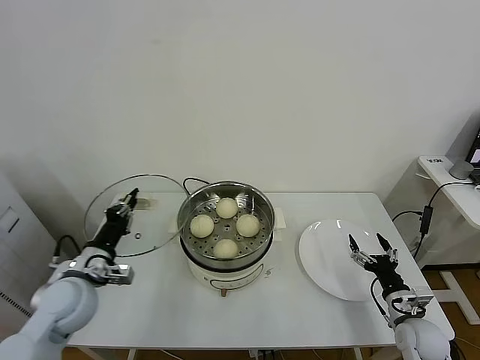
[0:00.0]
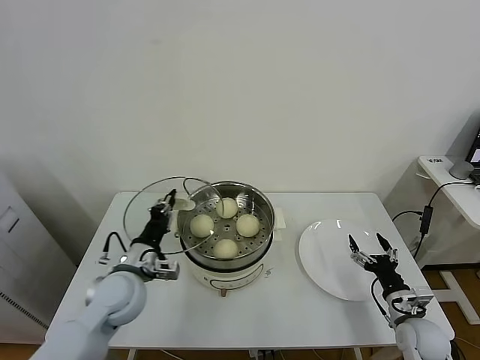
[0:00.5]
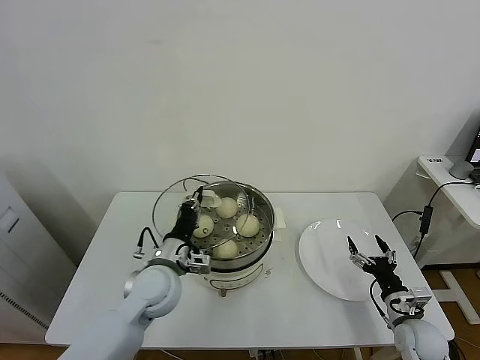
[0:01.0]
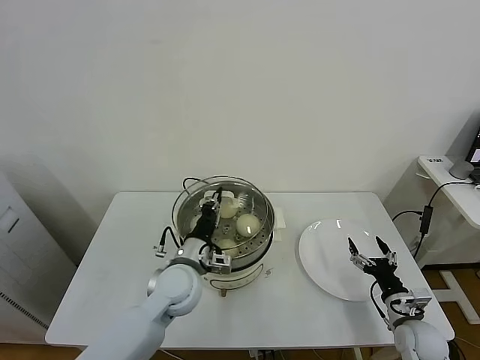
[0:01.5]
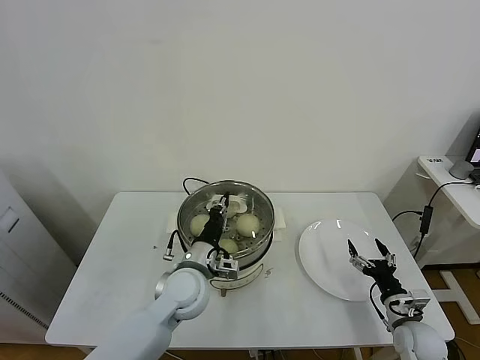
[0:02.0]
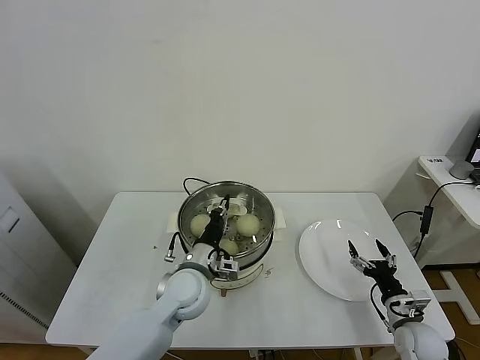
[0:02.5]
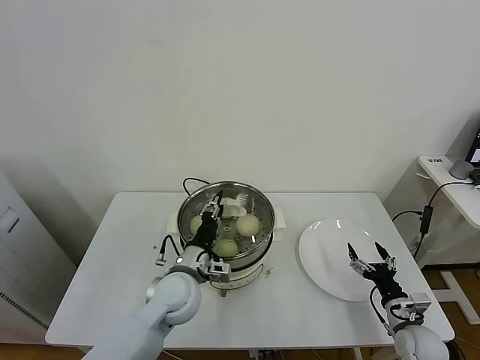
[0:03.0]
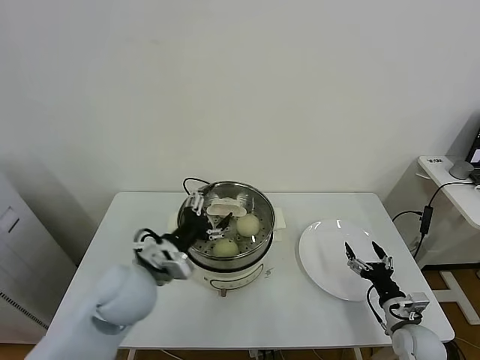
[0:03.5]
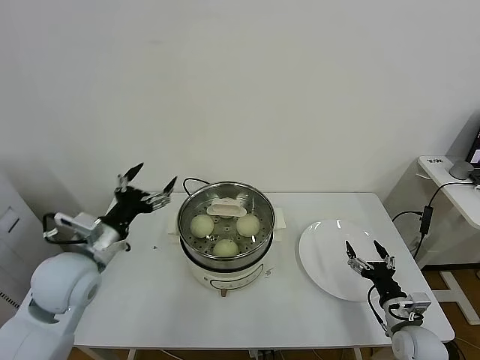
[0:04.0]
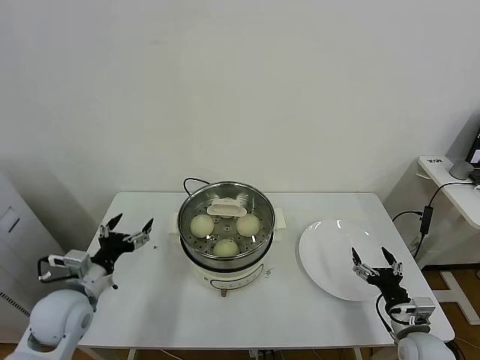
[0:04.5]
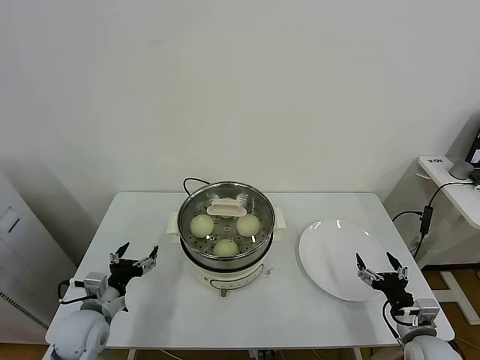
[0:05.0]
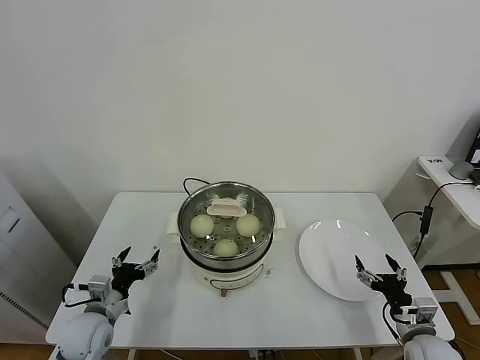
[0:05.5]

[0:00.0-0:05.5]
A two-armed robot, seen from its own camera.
Task of the whole recording: take steamed baozi put them in steamer.
Step, 0:00.0 to 0:03.0: Place the pot lid on the steamer with left gripper.
0:00.0 to 0:02.0: The left gripper heads to the right, covering some 20 cm.
0:02.0 to 0:03.5: The left gripper shifts about 10 cm to the left and upward, and opens its fingers.
0:03.5 to 0:05.5: The right gripper moves roughly 5 cm. The left gripper shifts roughly 20 cm downward and to the left.

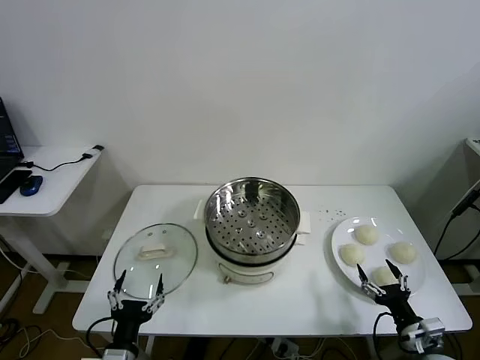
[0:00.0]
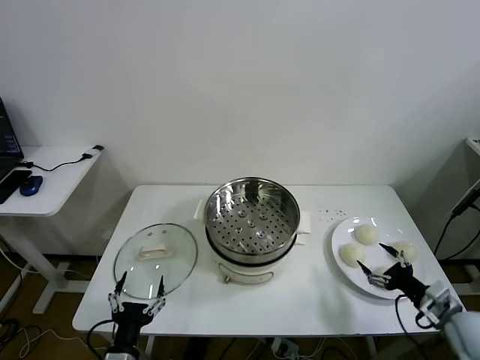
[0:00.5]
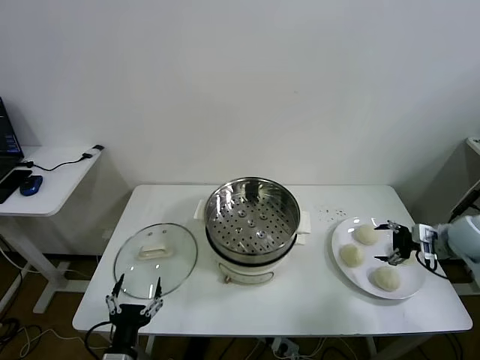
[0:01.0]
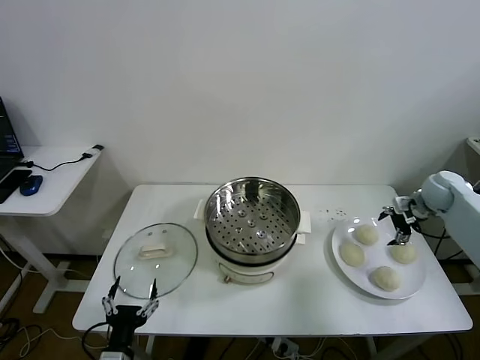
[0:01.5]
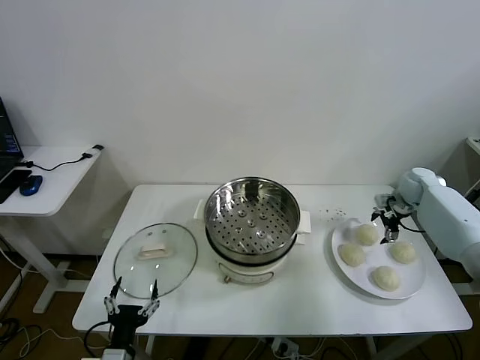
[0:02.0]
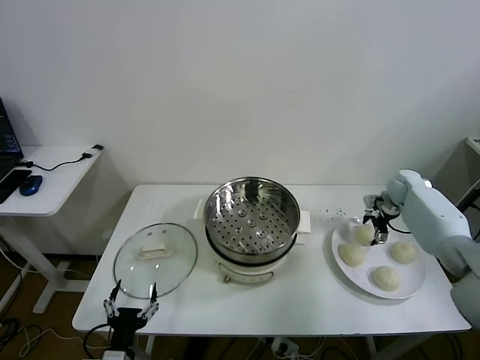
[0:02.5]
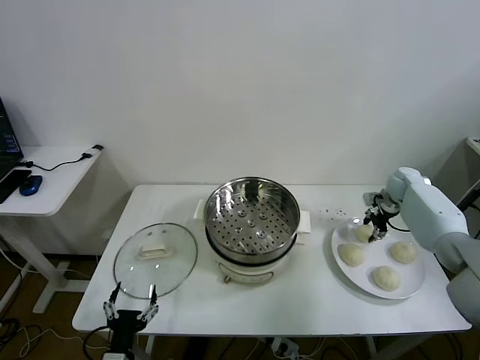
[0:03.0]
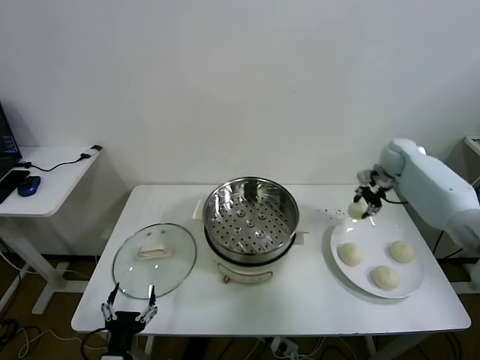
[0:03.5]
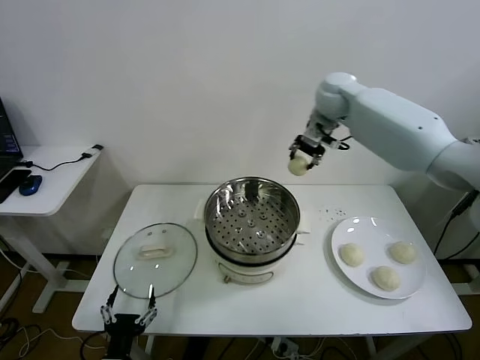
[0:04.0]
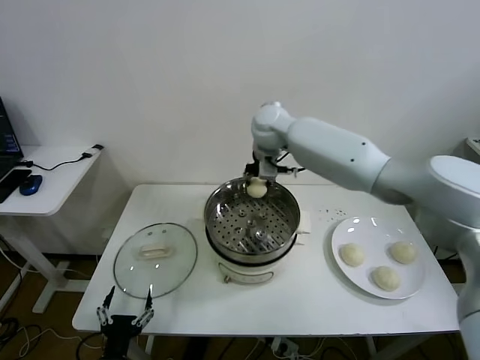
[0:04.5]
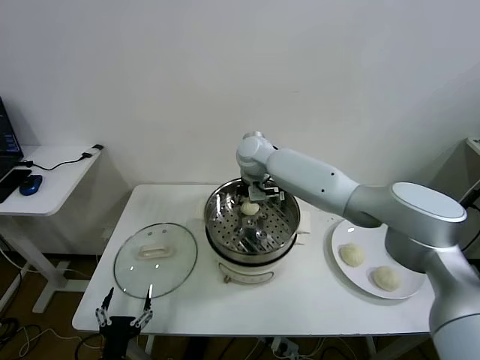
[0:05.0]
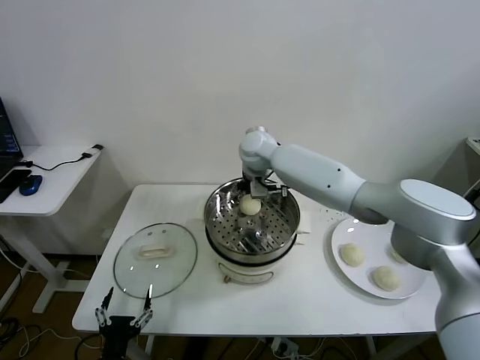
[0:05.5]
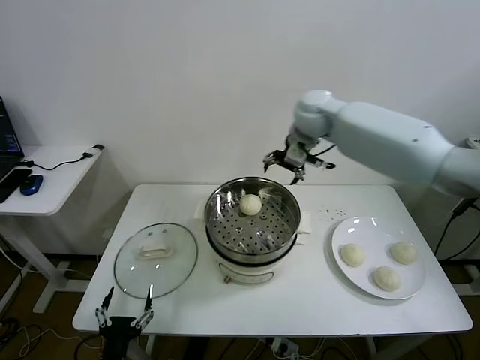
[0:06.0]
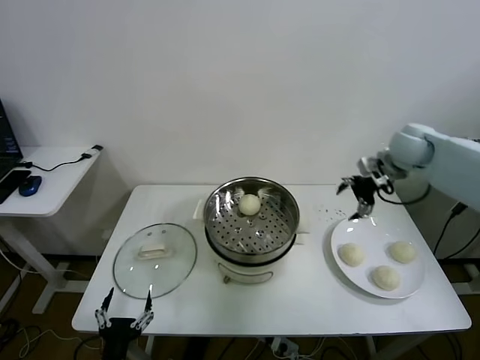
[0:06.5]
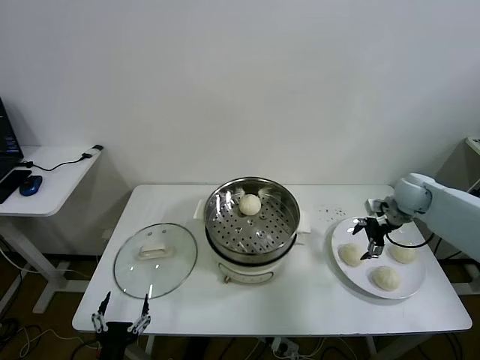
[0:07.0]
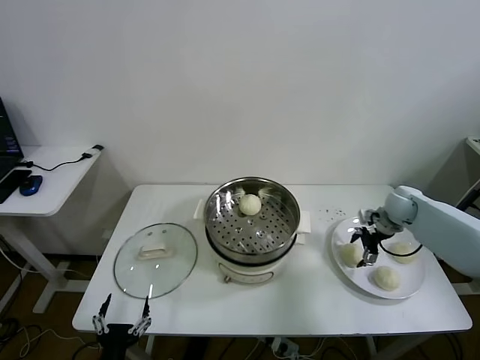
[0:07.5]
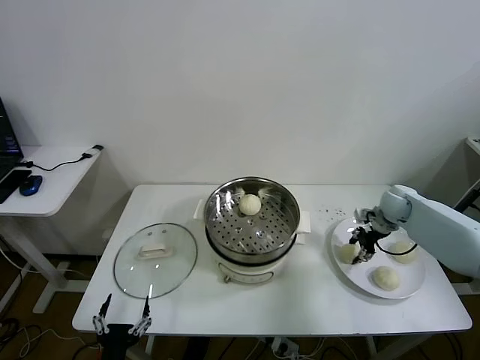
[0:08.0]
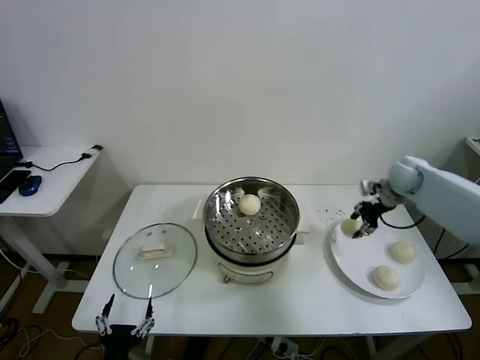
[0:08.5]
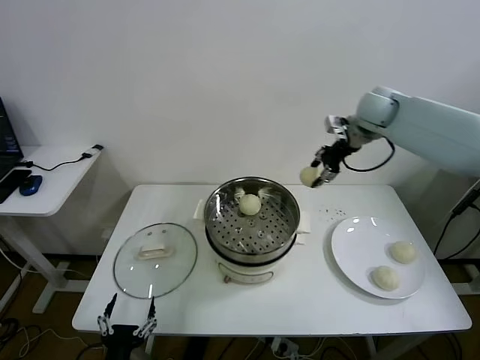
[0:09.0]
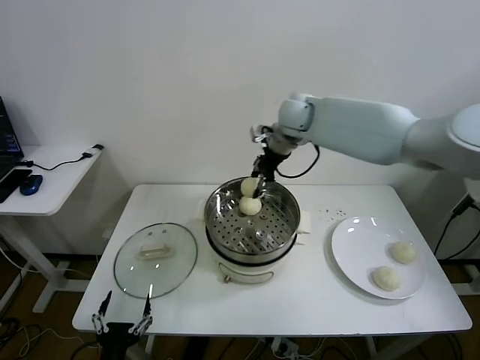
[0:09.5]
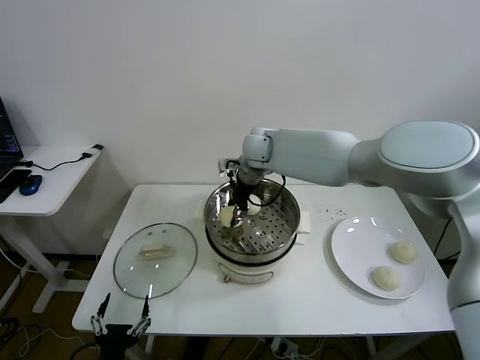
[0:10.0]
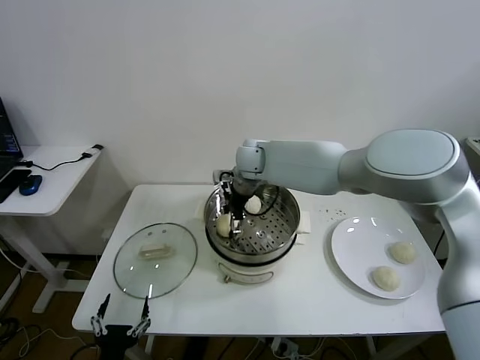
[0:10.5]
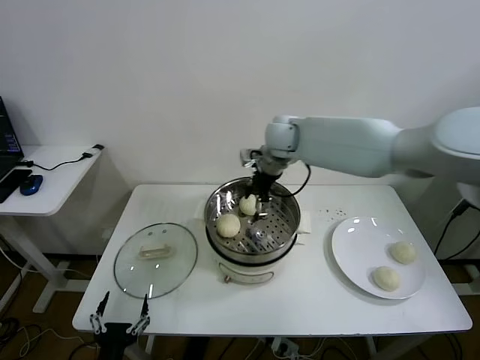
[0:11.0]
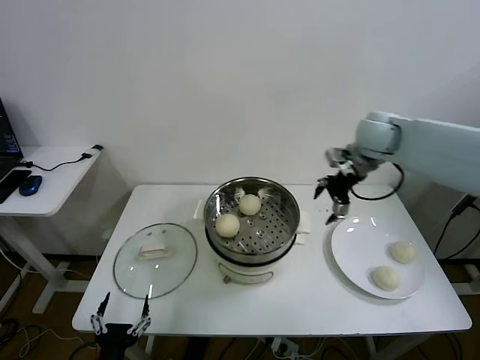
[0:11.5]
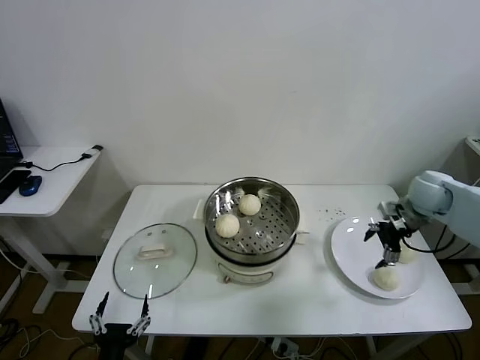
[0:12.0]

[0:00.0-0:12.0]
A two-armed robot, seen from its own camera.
Task of the whole recording: take steamed baozi put them in steamer.
Step, 0:00.0 to 0:02.5: Grasp the baozi in the plate with right gripper.
Step, 0:03.0 to 0:05.5: Place the baozi on the steamer with right gripper.
Step, 0:06.0 to 0:07.5: Grasp the baozi in the plate with right gripper.
Step, 0:08.0 to 0:10.5: Place the baozi on the steamer with right gripper.
0:02.0 to 0:04.0: The right gripper heads to the left and upward, covering approximately 40 cm, and closes.
0:04.0 to 0:06.0: The right gripper travels to the left and back again, roughly 15 cm each way, and opens its fingers.
0:06.0 to 0:08.0: The right gripper moves downward and to the right, some 35 cm, and closes up.
0:08.0 to 0:10.0: The right gripper heads to the left, covering roughly 40 cm.
0:10.0 to 0:12.0: The right gripper is displaced to the right by approximately 40 cm, and opens.

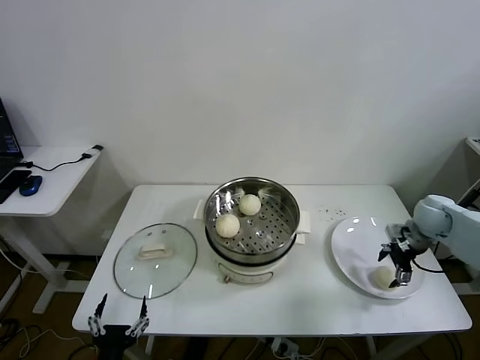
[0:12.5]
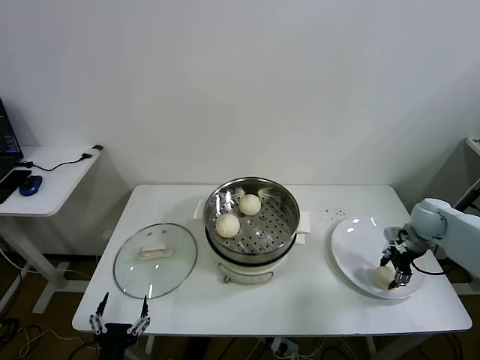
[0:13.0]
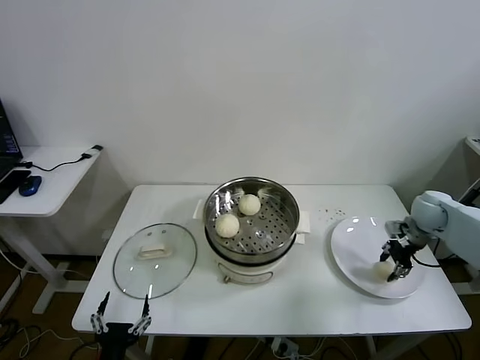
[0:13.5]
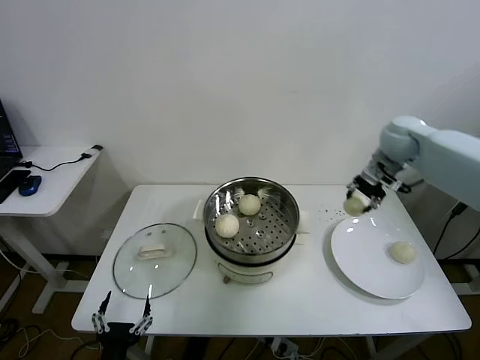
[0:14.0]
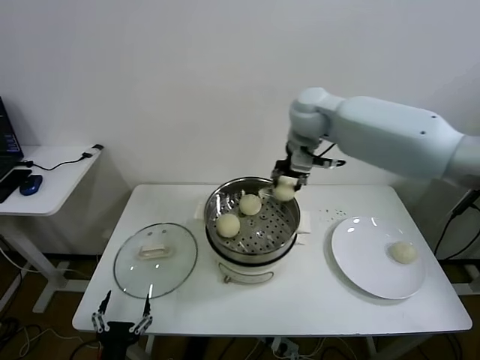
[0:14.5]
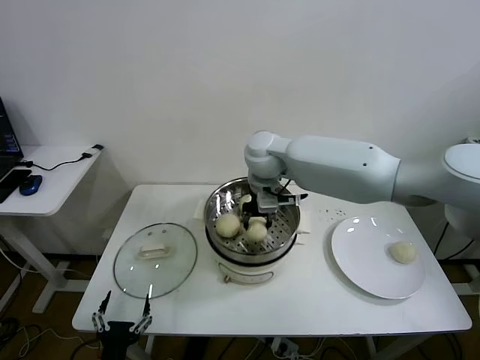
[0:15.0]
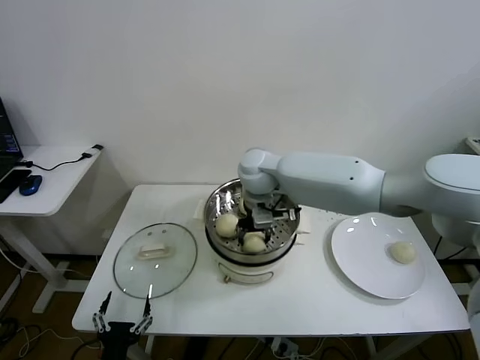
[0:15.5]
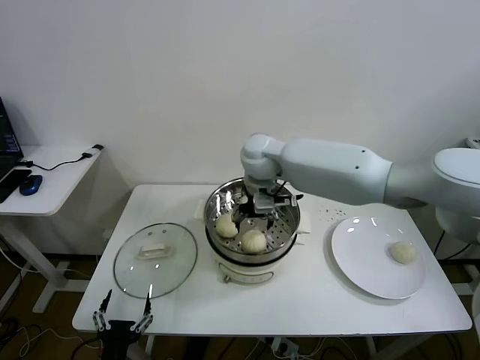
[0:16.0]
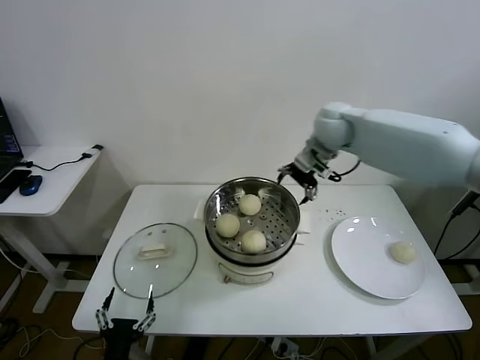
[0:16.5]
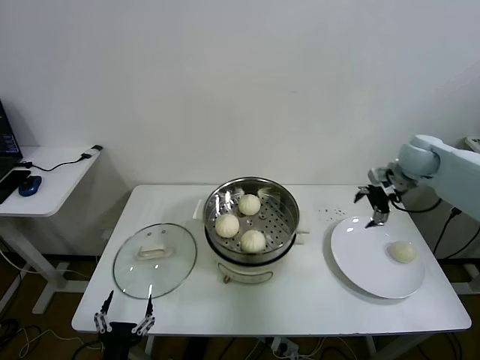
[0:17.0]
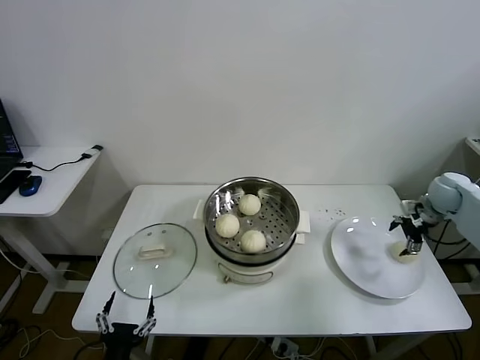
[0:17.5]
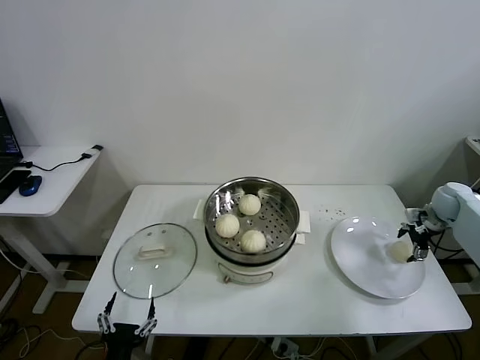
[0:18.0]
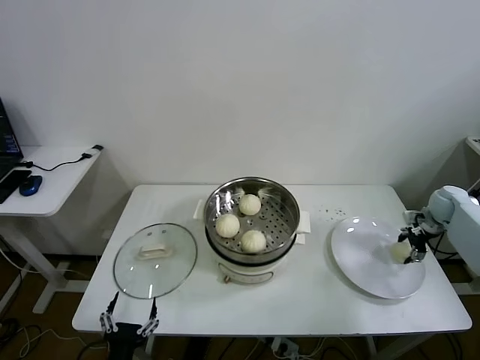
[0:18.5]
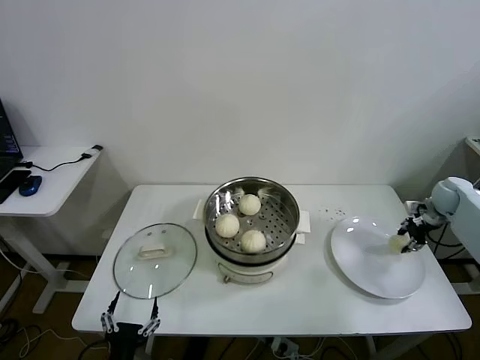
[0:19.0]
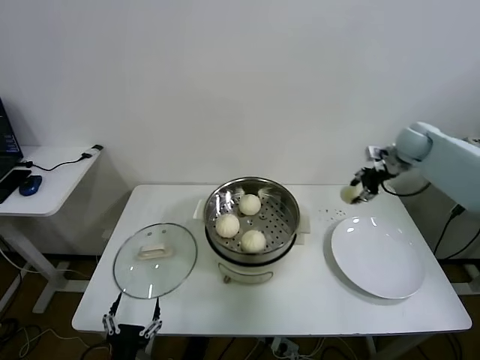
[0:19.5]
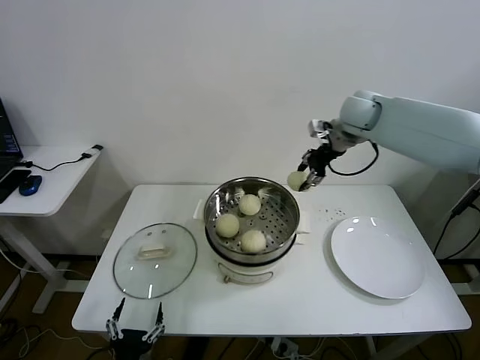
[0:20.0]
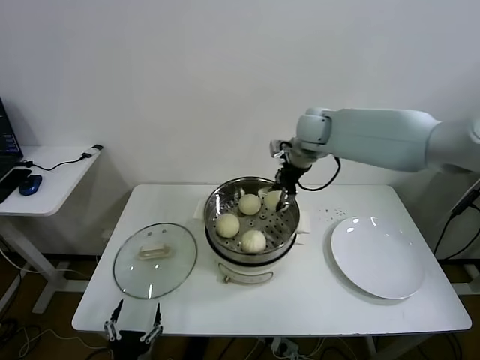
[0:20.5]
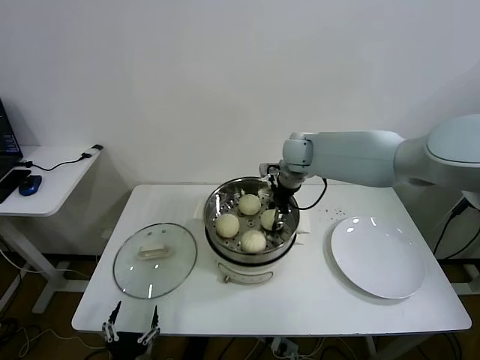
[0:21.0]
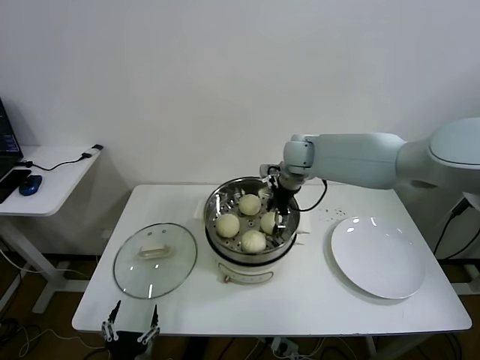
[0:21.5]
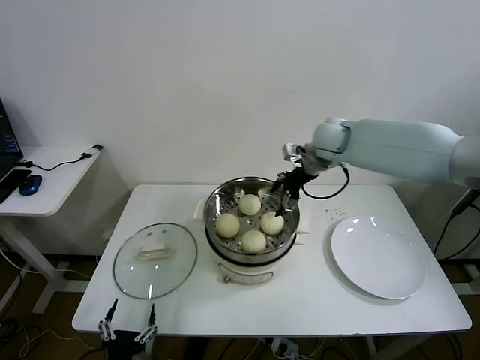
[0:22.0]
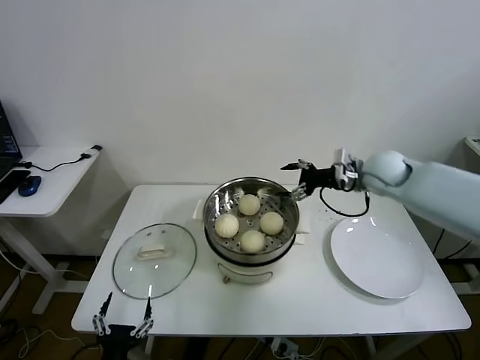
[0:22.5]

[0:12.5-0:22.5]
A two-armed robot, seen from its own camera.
Task of the whole recording: take steamed baozi put them in steamer.
Step, 0:13.5 to 0:15.5: Place the baozi on the steamer with right gripper.
Step, 0:16.0 to 0:18.5: Grasp the baozi in the plate with right gripper.
Step, 0:19.0 to 0:21.5: Place the baozi on the steamer with right gripper.
0:12.5 to 0:14.5: The right gripper moves to the left and upward, some 40 cm, and closes its fingers.
0:14.5 to 0:16.5: The right gripper shifts some 10 cm to the right, and opens its fingers.
0:16.5 to 0:18.5: The right gripper travels to the right and downward by about 40 cm, and closes.
0:18.5 to 0:20.5: The right gripper moves to the left and upward, roughly 40 cm, and closes up.
0:20.5 to 0:22.5: The right gripper shifts some 20 cm to the right, downward and backward, and opens its fingers.
